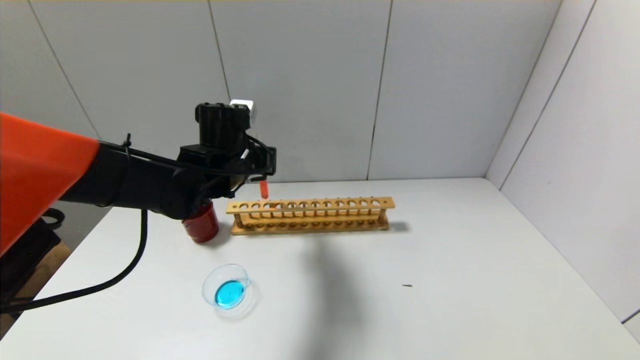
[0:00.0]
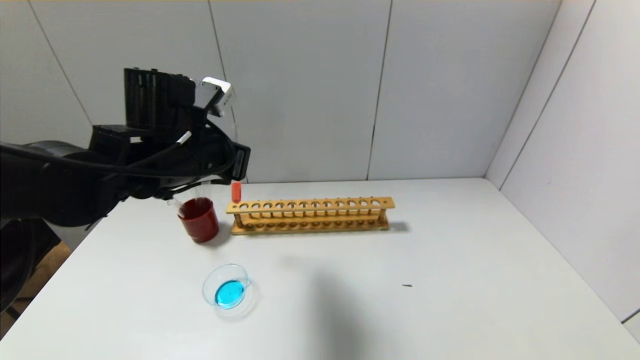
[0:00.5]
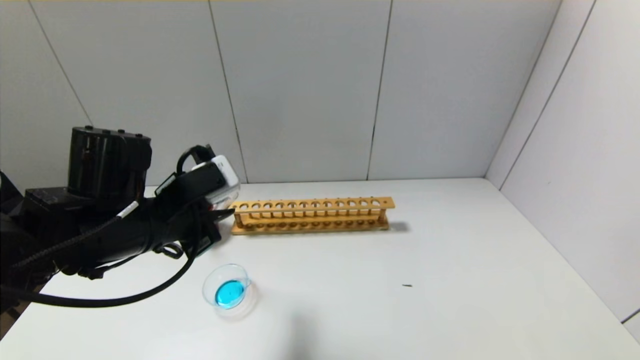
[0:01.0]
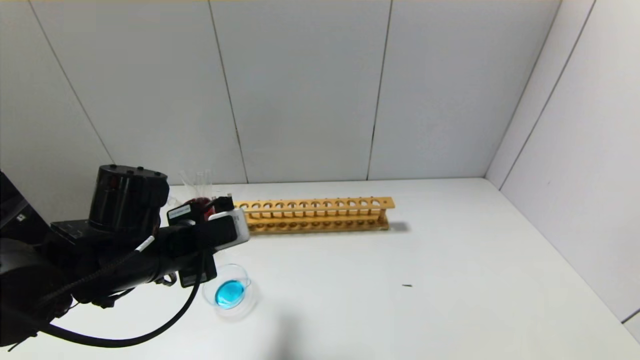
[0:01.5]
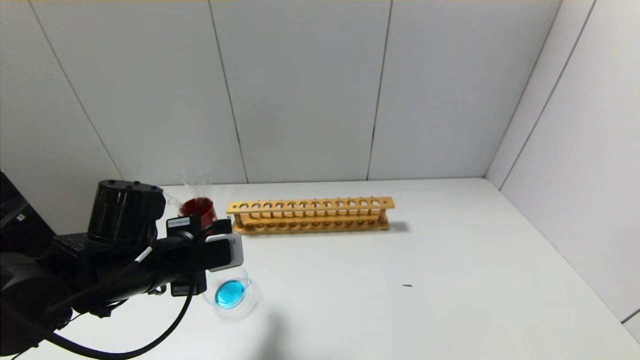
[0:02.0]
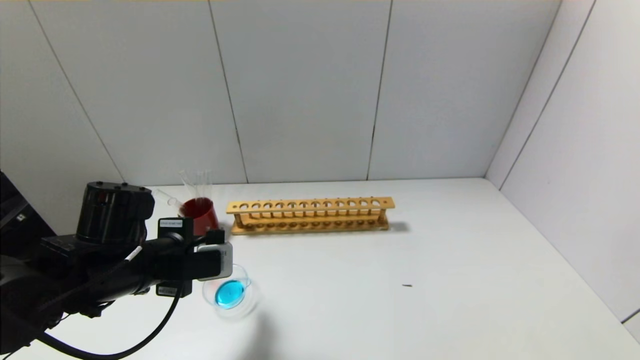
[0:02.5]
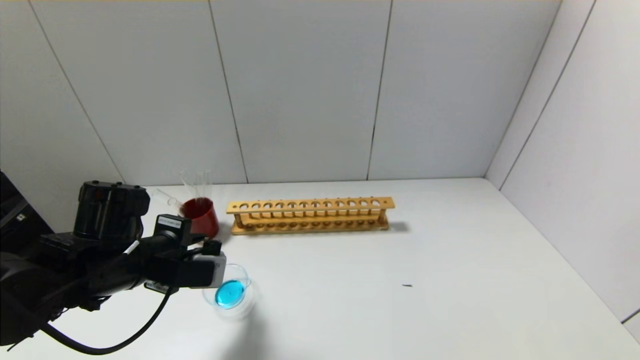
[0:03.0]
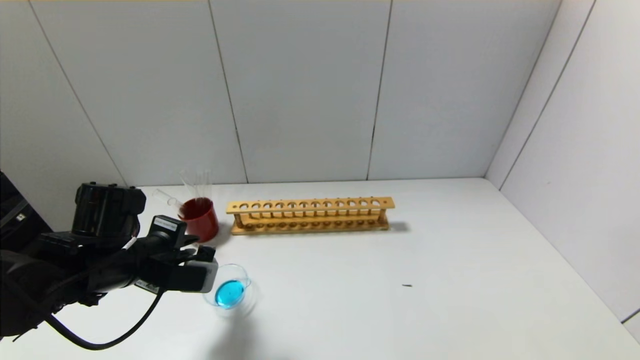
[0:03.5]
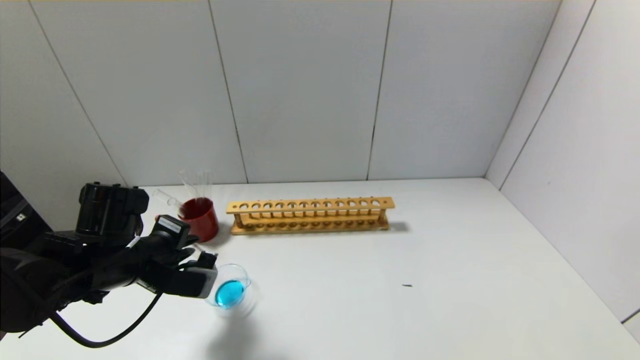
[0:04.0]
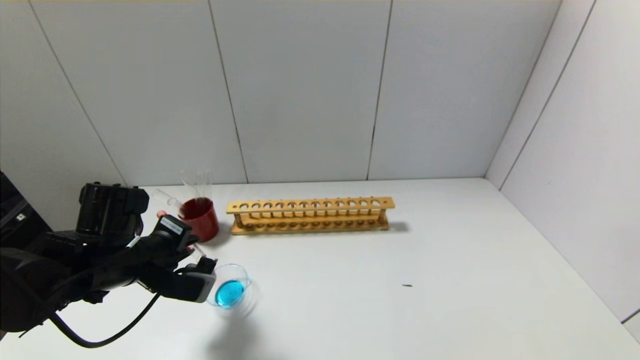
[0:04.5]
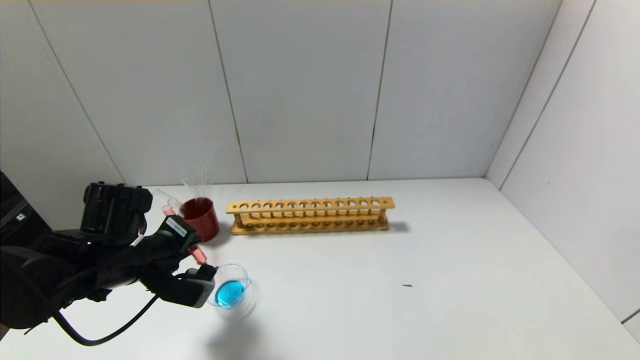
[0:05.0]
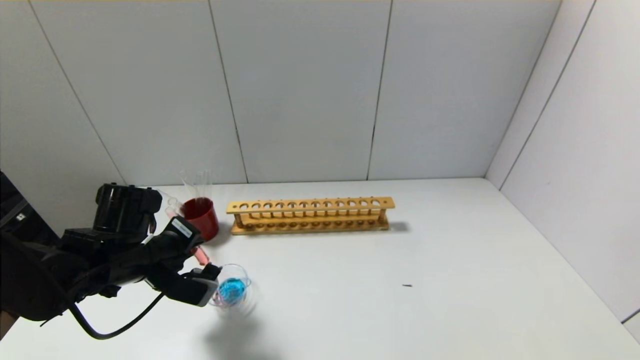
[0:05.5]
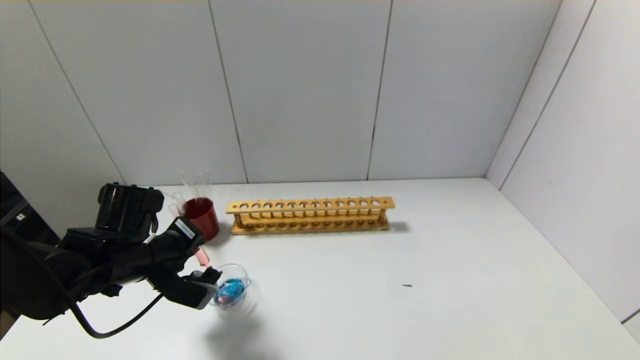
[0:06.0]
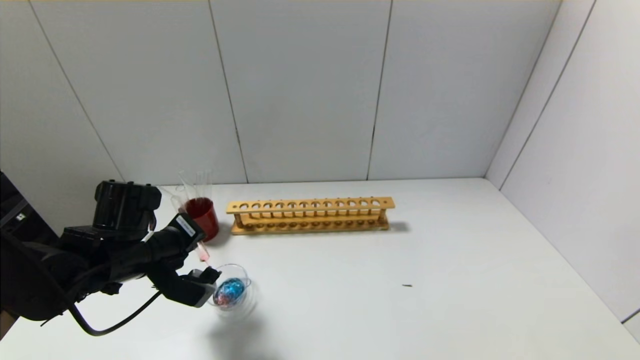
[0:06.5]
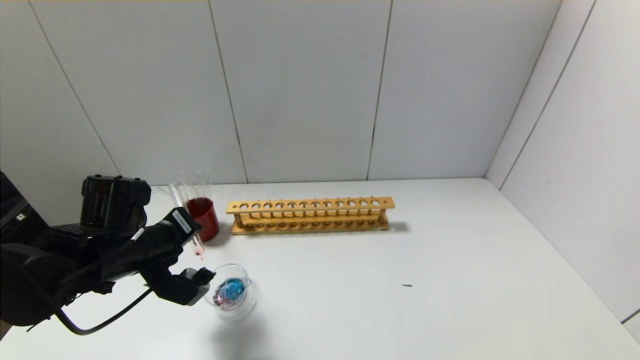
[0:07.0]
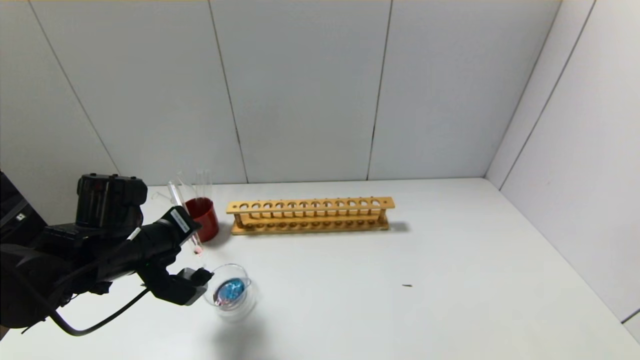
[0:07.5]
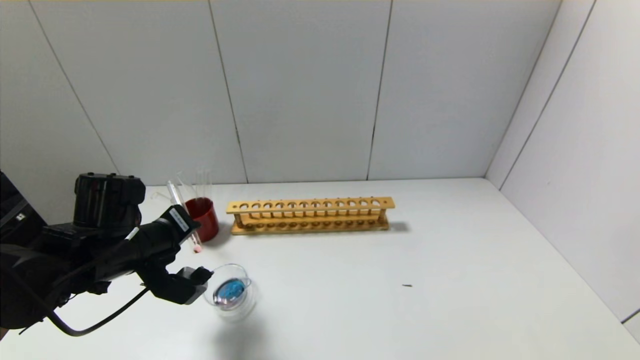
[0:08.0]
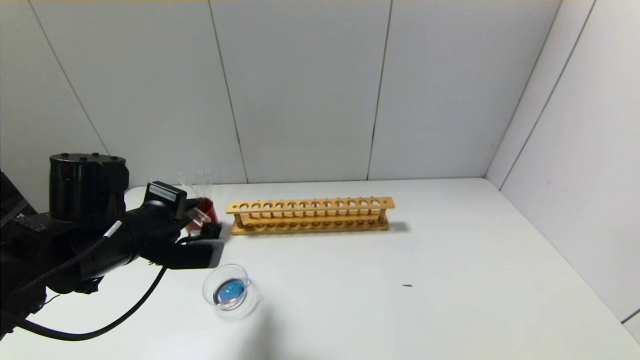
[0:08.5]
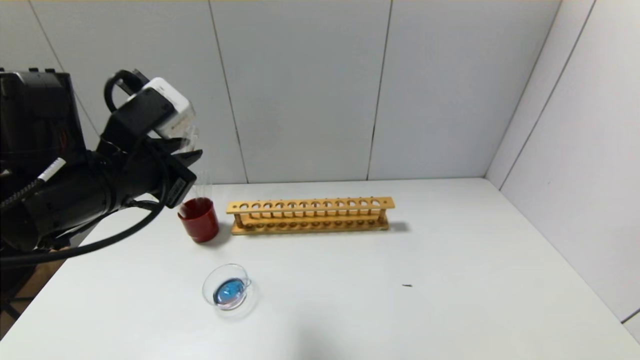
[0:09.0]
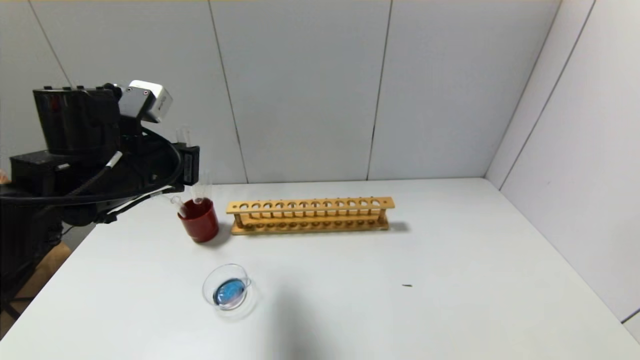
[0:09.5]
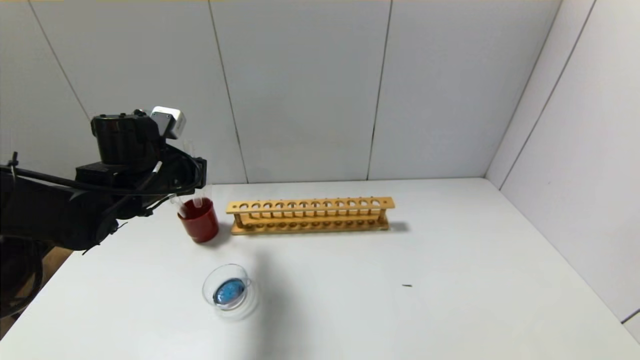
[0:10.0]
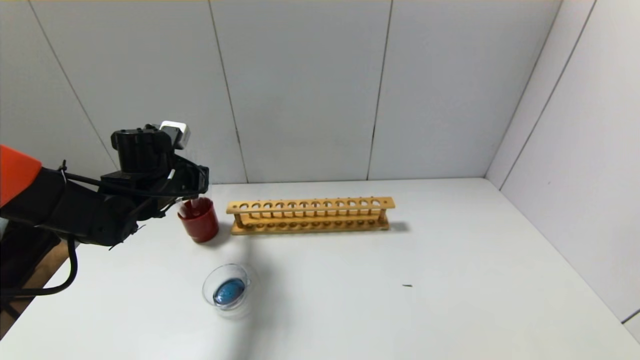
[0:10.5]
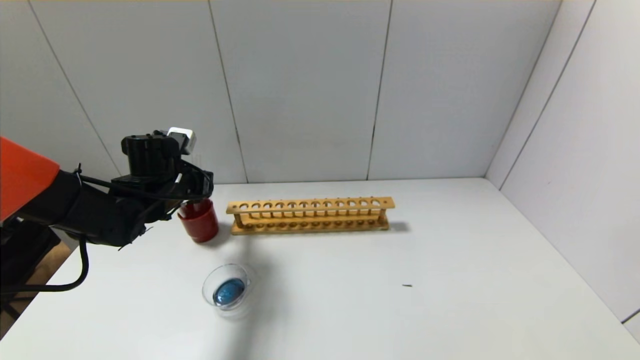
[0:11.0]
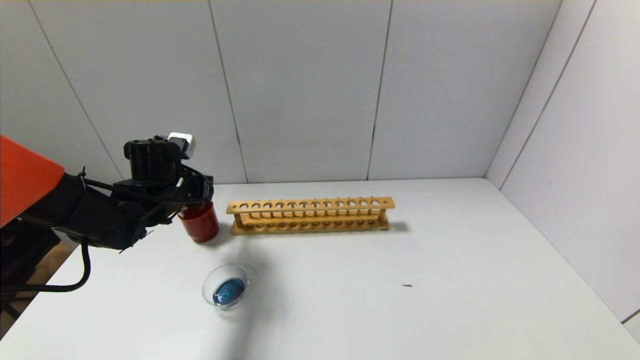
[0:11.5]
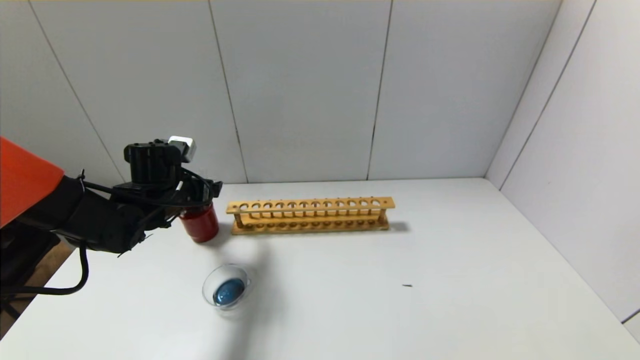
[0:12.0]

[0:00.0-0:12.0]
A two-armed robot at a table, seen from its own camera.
Step, 0:00.0 to 0:08.0: Pour the red reagent into the graduated cylinder with the left gripper.
Step, 0:08.5 to 0:11.5: Place the test tube into the brown cup with the left gripper.
0:00.0 to 0:02.0: The left gripper heads backward, to the left and downward, covering some 15 cm.
0:04.0 to 0:06.0: The grippers make only small movements.
0:06.0 to 0:08.0: The grippers stay close to where they were, moving slightly.
0:08.0 to 0:10.0: The left gripper is displaced forward and upward by about 10 cm.
0:10.0 to 0:12.0: The left gripper travels downward by some 5 cm, and opens.

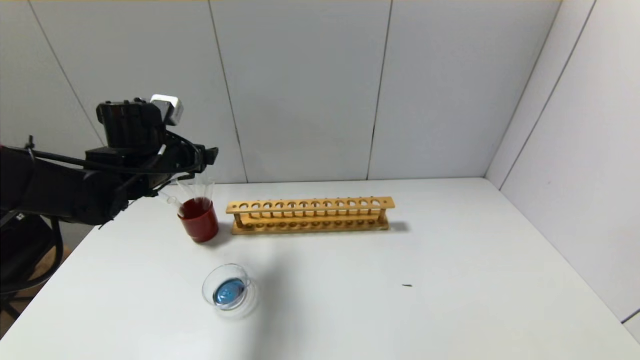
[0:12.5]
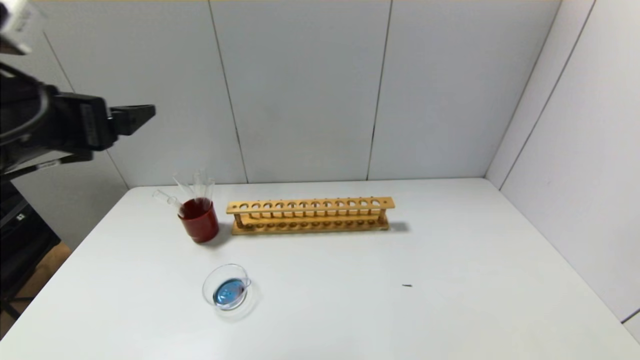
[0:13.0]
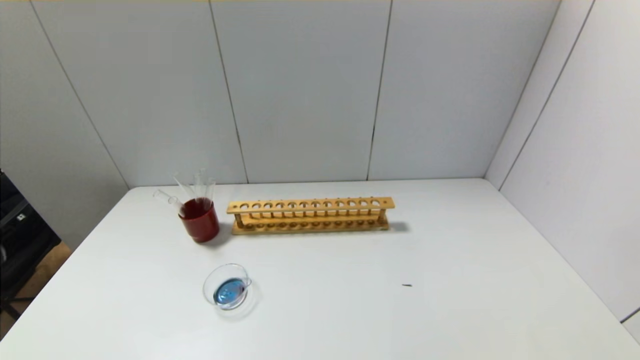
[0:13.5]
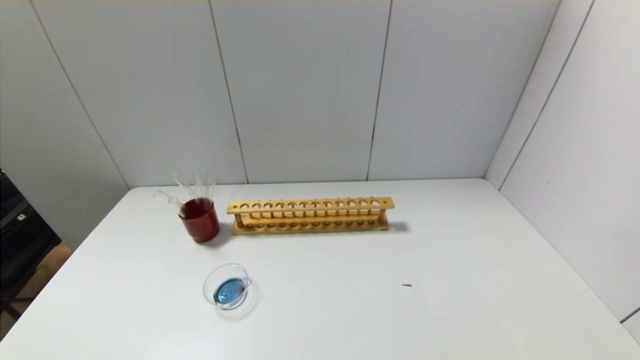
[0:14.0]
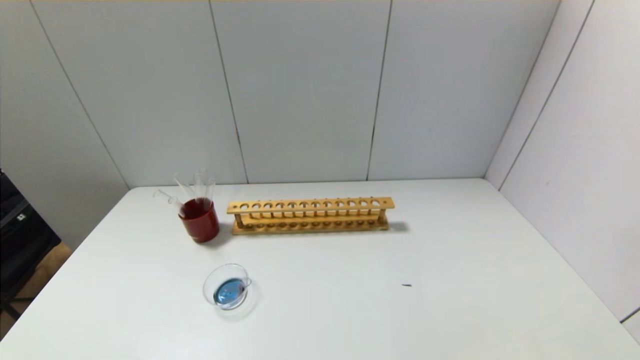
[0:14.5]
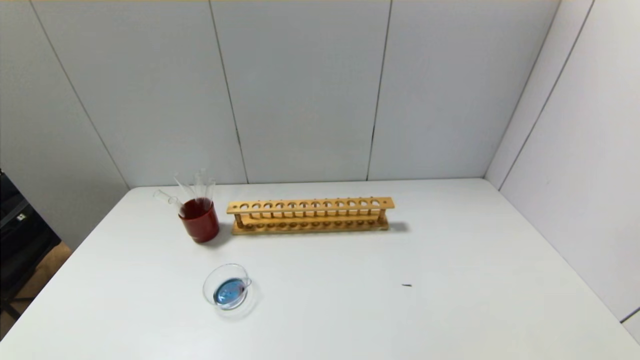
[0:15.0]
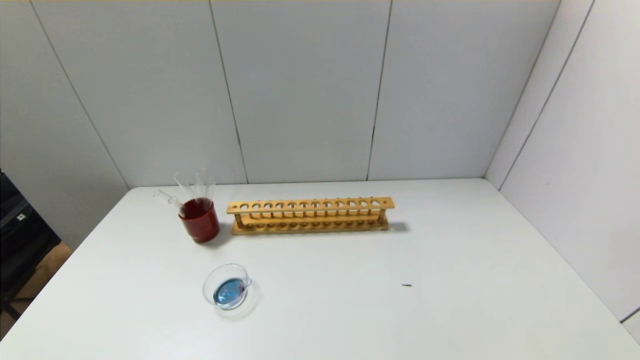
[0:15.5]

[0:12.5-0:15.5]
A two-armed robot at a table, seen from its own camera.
0:12.5 to 0:14.0: The left gripper goes roughly 40 cm backward.
